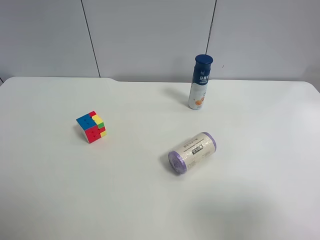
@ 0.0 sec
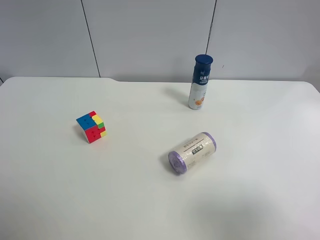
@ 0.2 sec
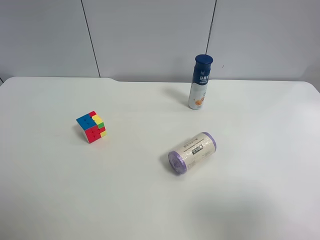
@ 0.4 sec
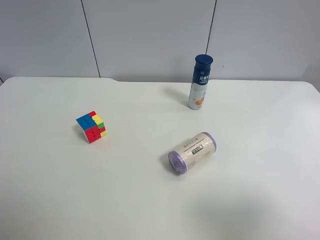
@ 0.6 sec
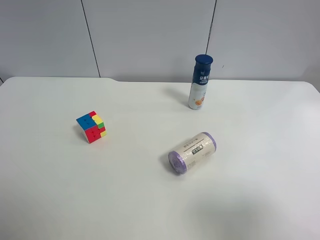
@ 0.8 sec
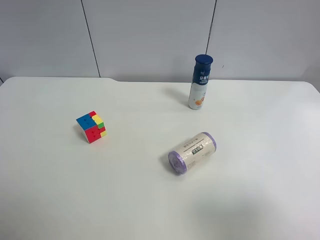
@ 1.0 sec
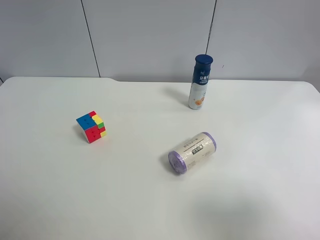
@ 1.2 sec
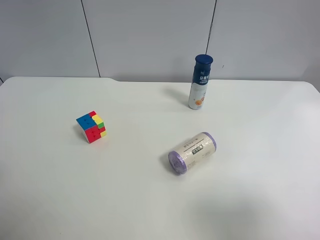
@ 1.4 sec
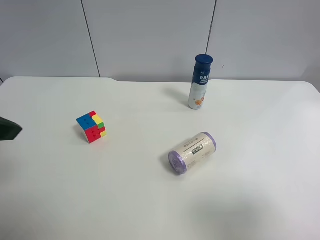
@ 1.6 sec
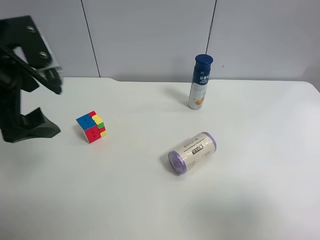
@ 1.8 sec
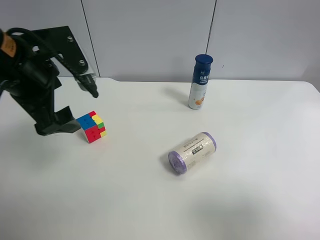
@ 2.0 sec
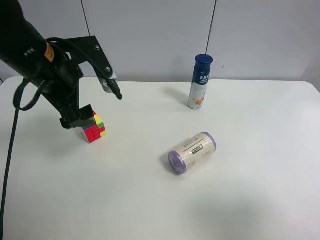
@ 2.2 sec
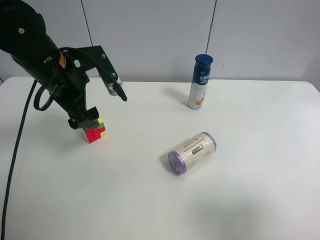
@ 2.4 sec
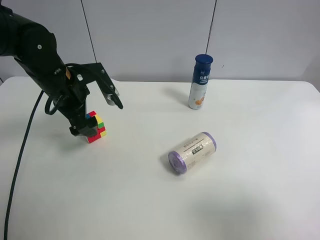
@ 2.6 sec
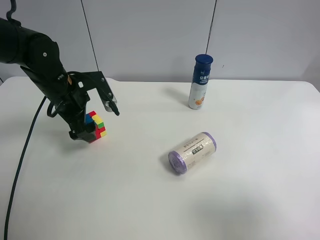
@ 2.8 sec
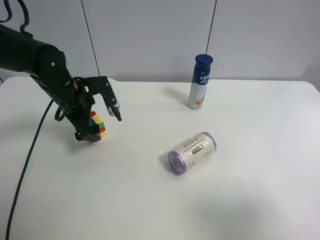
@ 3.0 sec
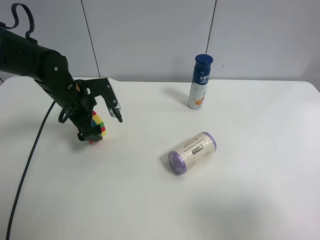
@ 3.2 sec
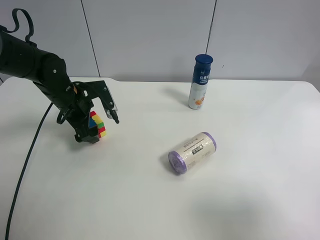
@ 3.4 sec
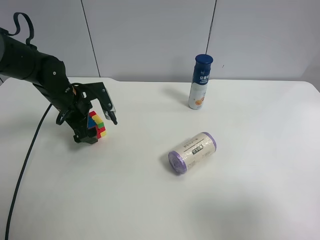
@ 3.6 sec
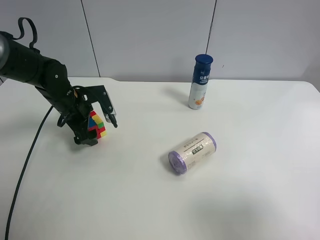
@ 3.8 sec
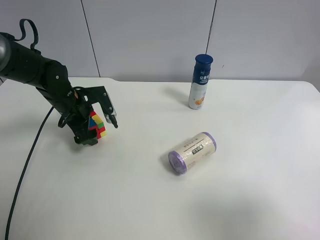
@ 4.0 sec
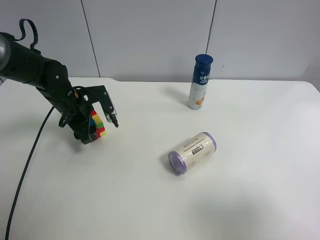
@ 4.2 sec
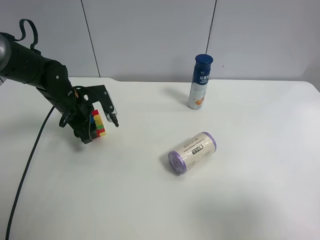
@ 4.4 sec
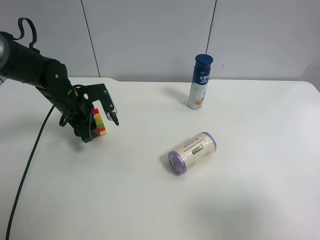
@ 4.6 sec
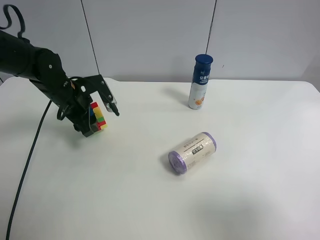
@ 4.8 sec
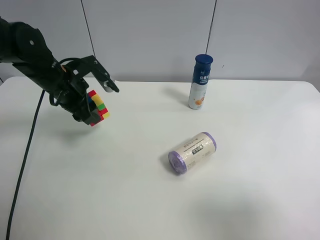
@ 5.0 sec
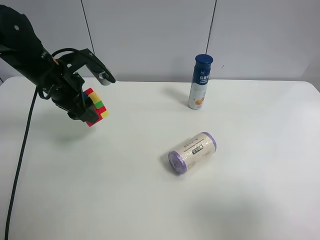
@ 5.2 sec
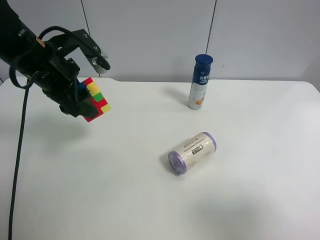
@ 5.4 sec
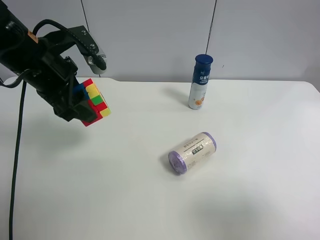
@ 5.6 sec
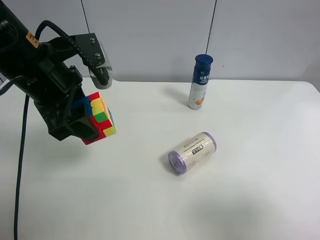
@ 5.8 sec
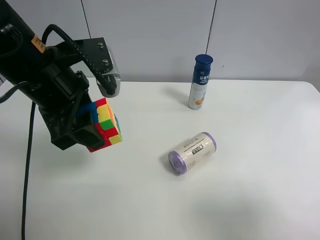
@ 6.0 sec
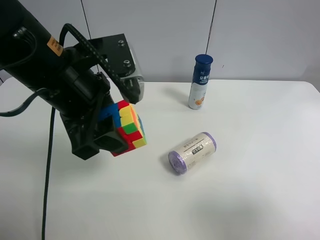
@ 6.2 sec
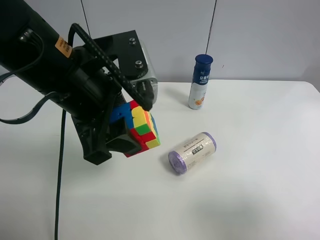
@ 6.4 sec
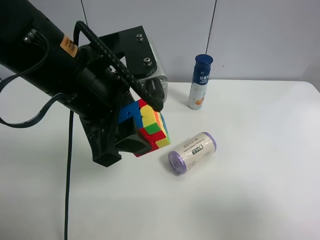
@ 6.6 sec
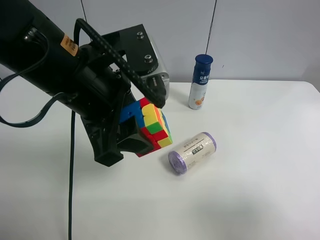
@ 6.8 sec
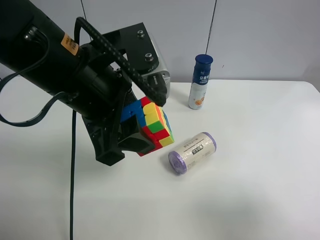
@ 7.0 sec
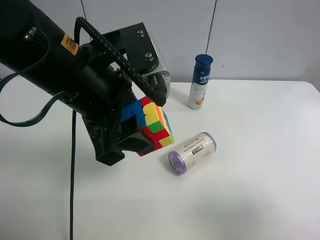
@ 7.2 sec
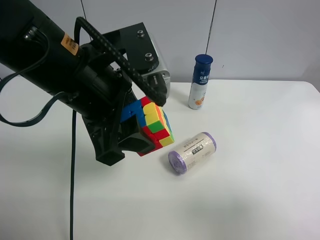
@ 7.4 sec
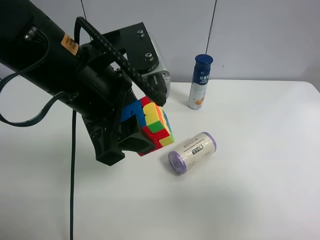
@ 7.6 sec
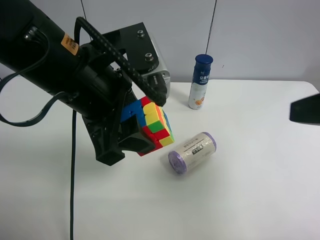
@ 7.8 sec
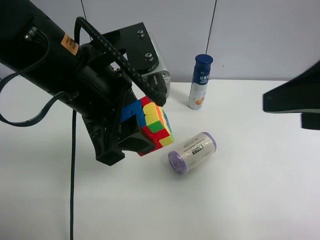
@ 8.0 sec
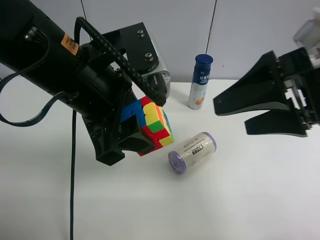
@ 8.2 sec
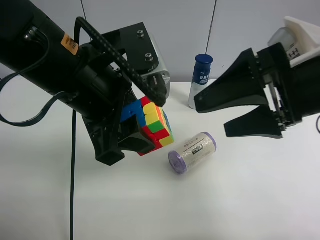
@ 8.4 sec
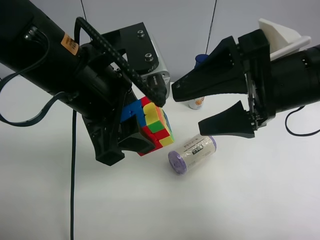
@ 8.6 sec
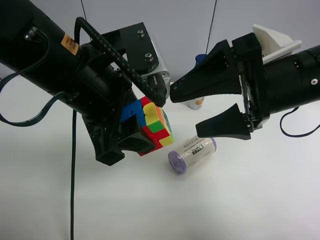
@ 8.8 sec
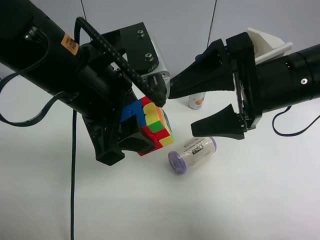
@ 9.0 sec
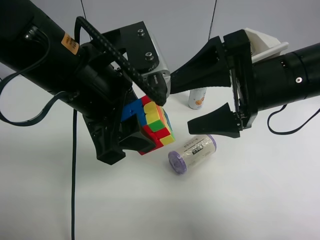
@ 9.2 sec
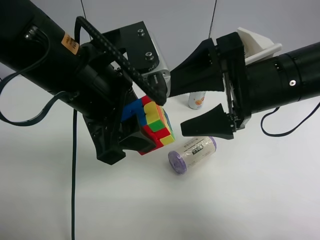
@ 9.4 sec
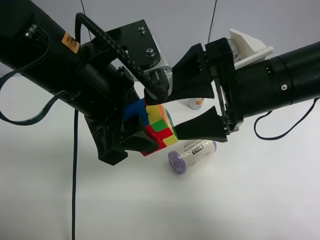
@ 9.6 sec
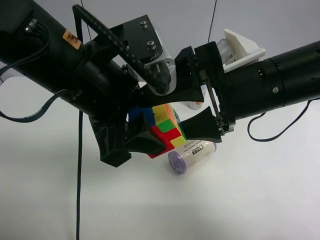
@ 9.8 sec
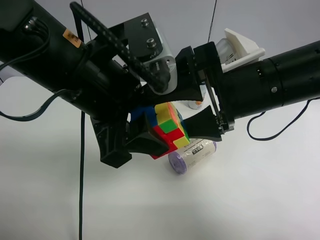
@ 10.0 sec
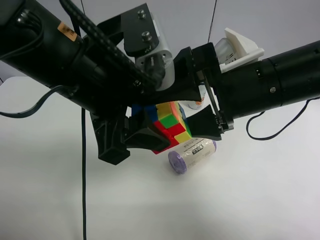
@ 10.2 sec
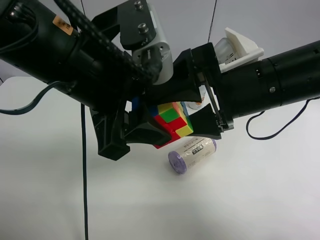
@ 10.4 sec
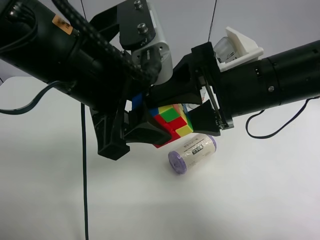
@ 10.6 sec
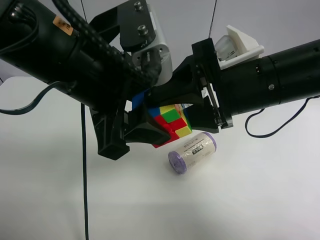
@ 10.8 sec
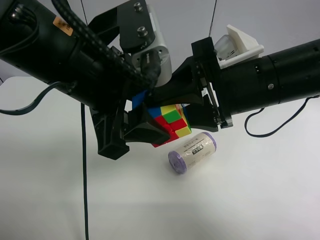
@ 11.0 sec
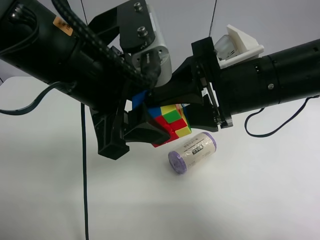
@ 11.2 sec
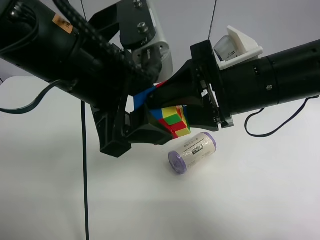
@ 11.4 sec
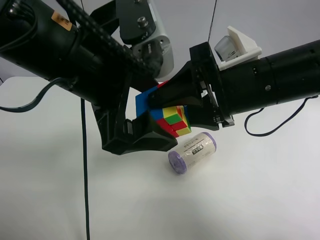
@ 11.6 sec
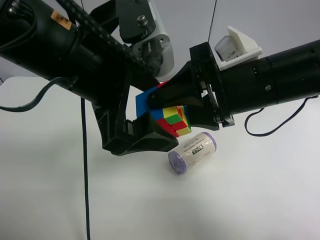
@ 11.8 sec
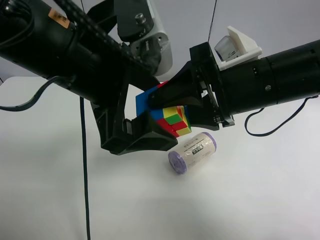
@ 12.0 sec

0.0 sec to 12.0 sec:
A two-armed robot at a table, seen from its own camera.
Task of the whole recording: use the left gripper to pick up the item and transfer it from the left gripper to the right gripper.
1.6 sec to 3.0 sec: The left gripper heads forward and downward, covering about 25 cm.
3.0 sec to 4.4 sec: The left gripper closes its fingers.
4.4 sec to 6.0 sec: The left gripper goes some 25 cm upward, backward and to the right.
6.0 sec to 7.6 sec: The left gripper changes place by about 5 cm.
7.6 sec to 9.0 sec: The right gripper goes about 20 cm forward and to the left.
10.4 sec to 12.0 sec: The left gripper opens its fingers. The right gripper closes up.

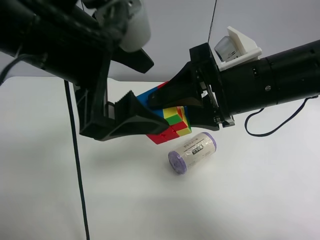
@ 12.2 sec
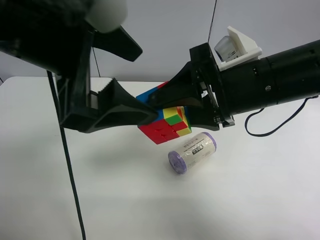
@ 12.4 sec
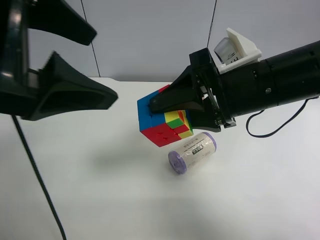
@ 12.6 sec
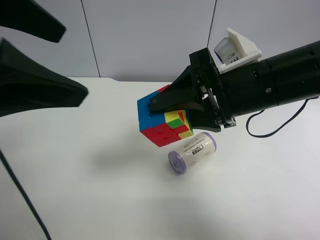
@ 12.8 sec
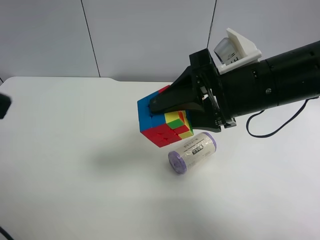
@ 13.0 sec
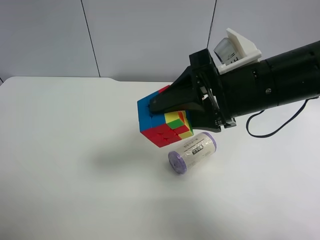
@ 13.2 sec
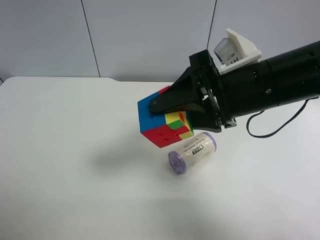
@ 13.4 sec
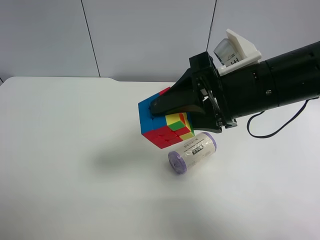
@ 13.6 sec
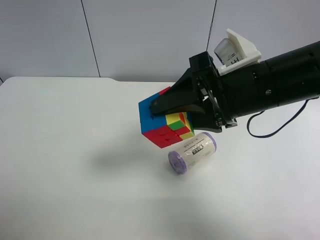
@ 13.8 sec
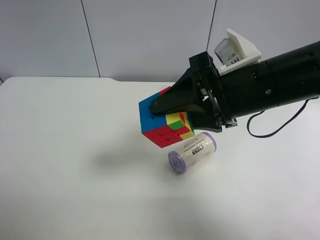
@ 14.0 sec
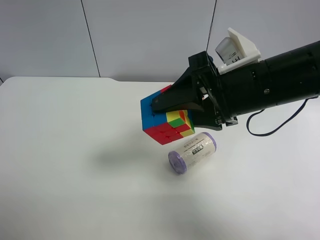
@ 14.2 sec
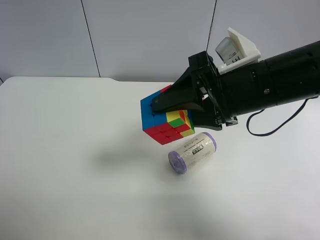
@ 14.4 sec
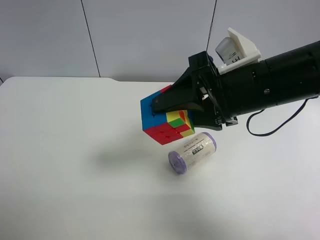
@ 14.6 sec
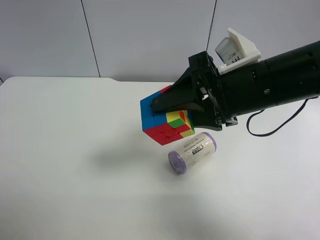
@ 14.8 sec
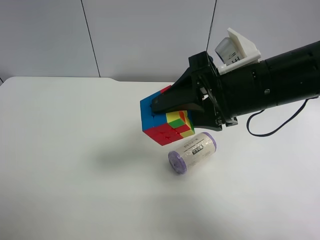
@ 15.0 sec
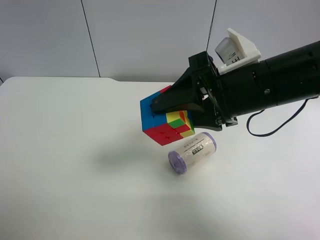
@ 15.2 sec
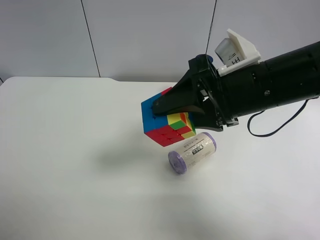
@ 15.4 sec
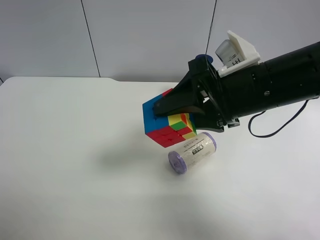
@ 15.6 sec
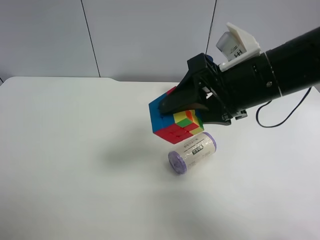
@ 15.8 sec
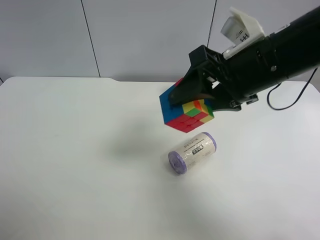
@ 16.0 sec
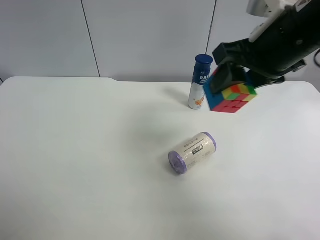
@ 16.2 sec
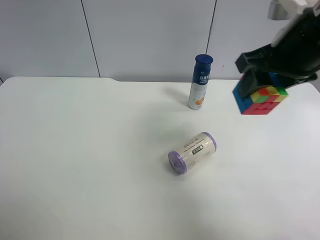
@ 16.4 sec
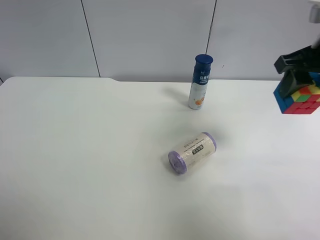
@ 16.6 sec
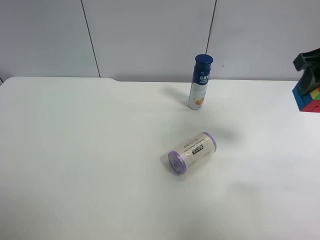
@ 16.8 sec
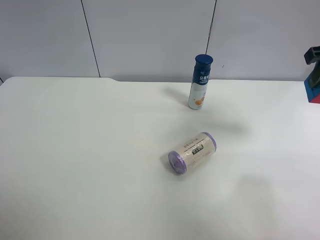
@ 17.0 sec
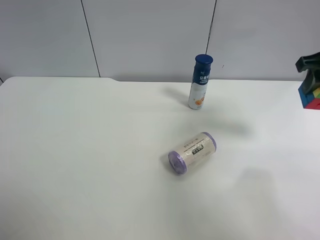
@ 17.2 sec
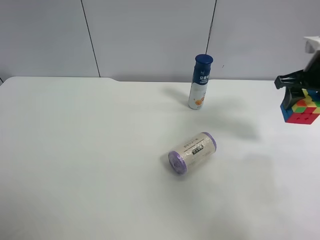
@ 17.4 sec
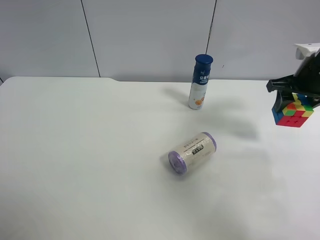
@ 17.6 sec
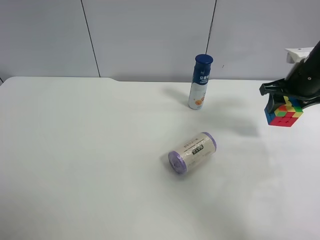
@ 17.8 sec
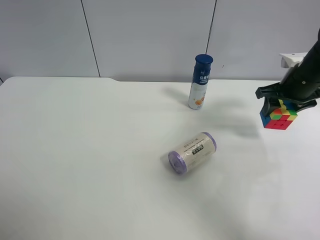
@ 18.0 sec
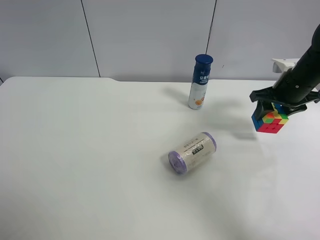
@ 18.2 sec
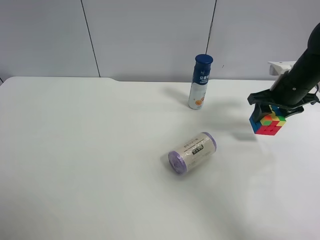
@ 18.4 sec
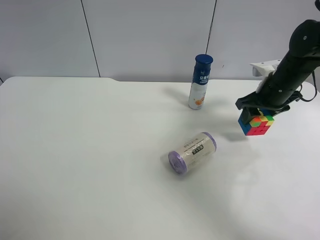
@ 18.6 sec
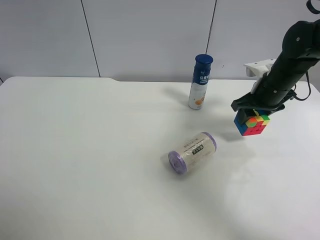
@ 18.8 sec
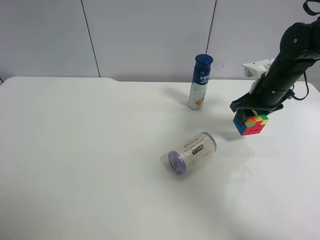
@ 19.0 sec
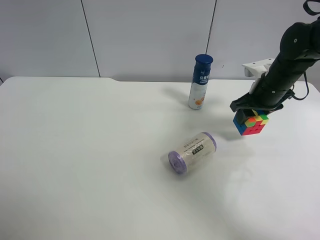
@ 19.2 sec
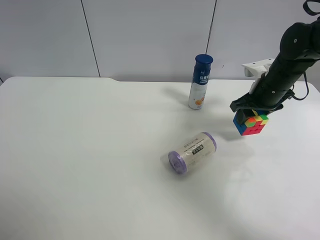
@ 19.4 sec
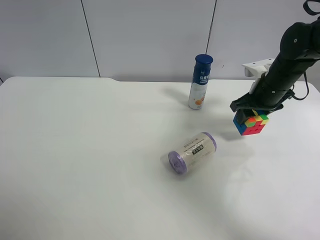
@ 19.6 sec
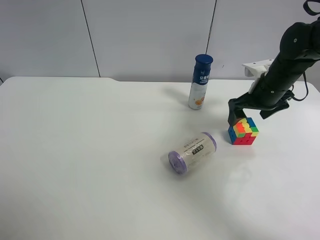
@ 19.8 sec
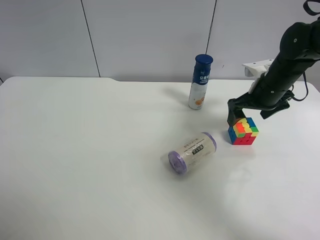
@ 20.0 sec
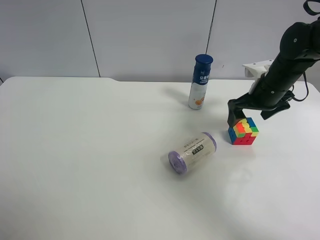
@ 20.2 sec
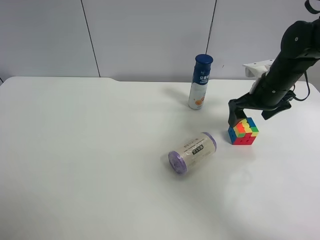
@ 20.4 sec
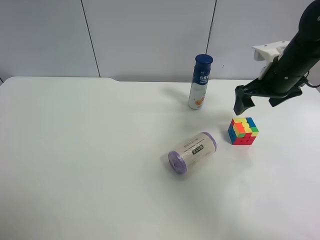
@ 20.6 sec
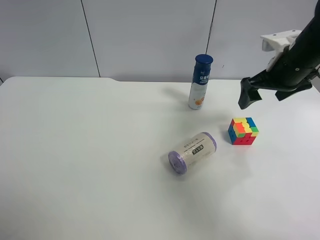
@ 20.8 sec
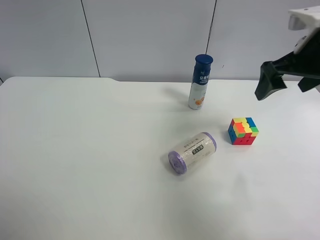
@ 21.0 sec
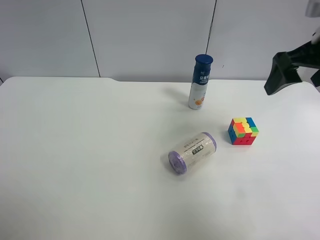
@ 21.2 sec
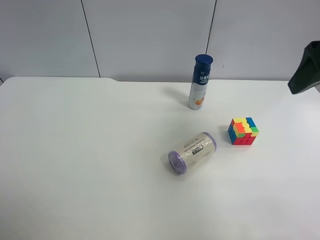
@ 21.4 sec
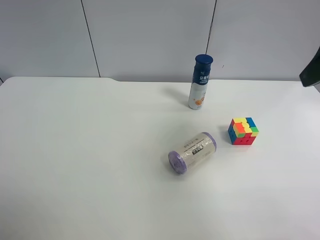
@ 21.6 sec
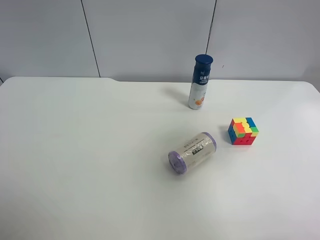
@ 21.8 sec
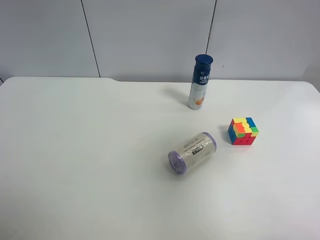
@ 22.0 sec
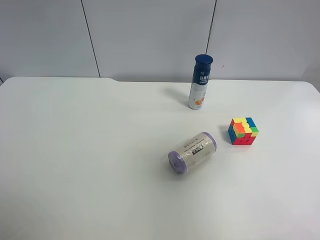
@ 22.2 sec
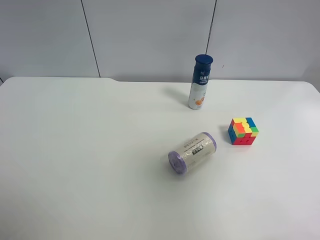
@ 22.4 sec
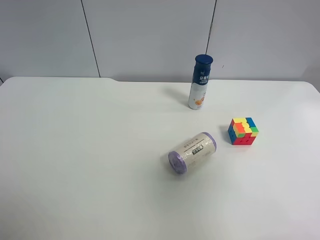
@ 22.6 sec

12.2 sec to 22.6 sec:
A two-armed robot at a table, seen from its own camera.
Task of the whole recording: use the left gripper to pick up the item and transfer it from the left gripper to the right gripper.
12.2 sec to 13.6 sec: The left gripper moves to the left and backward, roughly 25 cm.
15.2 sec to 16.6 sec: The right gripper travels to the right by some 10 cm.
16.6 sec to 18.2 sec: The right gripper heads downward and forward, covering about 15 cm.
18.2 sec to 19.6 sec: The right gripper moves about 5 cm.
19.6 sec to 21.2 sec: The right gripper shifts approximately 20 cm upward and backward, and opens.
21.2 sec to 22.6 sec: The right gripper goes approximately 20 cm backward.
